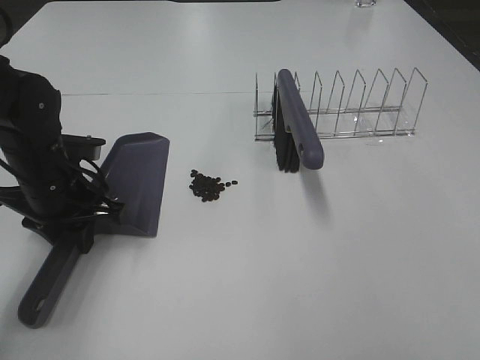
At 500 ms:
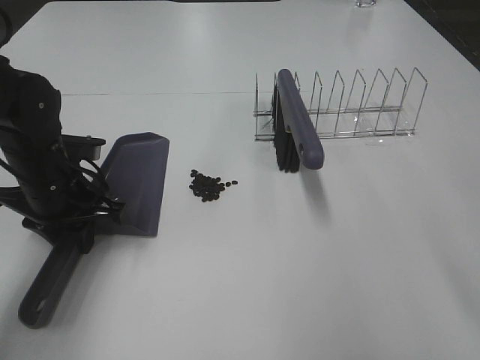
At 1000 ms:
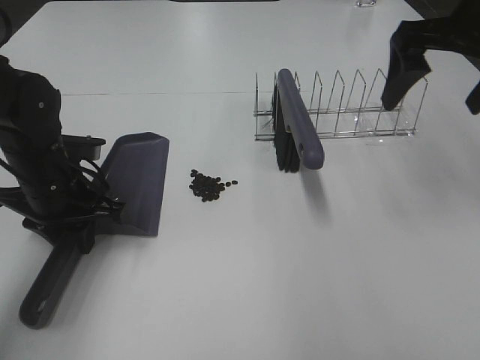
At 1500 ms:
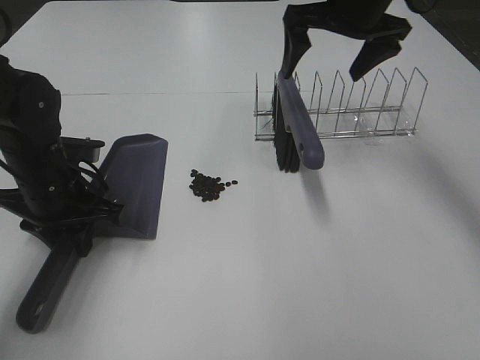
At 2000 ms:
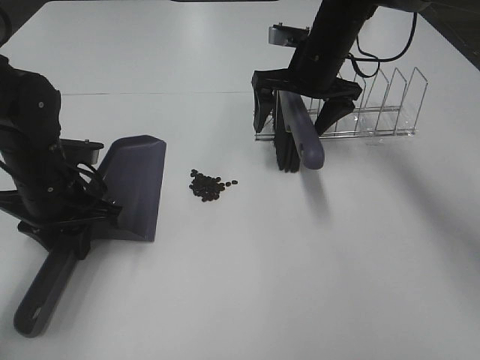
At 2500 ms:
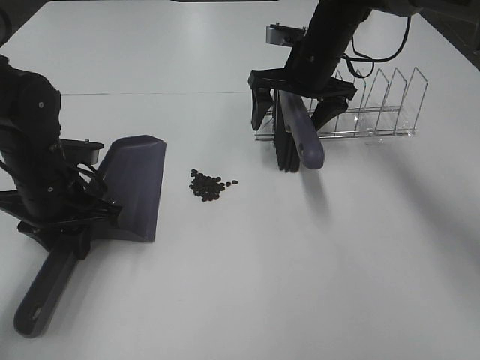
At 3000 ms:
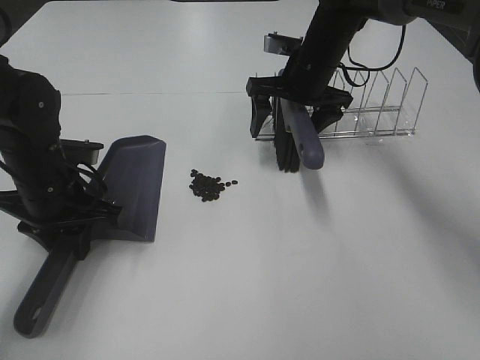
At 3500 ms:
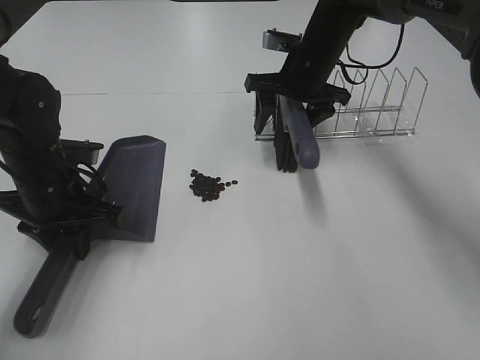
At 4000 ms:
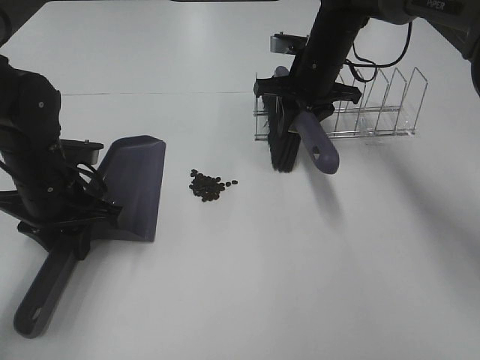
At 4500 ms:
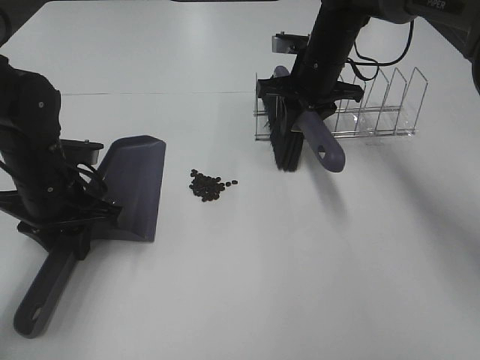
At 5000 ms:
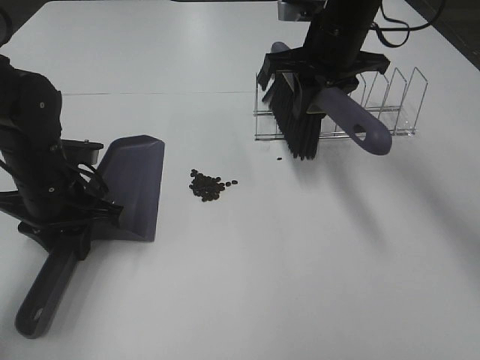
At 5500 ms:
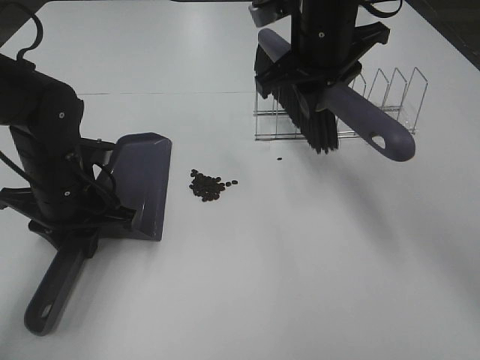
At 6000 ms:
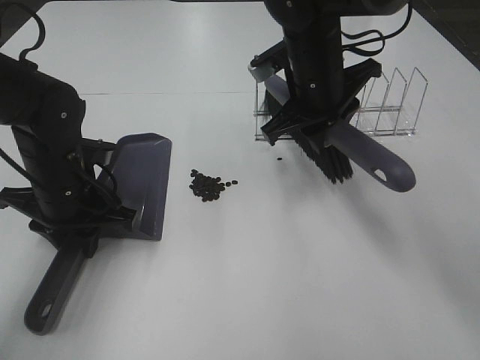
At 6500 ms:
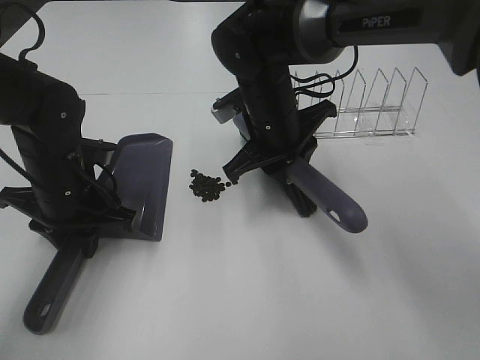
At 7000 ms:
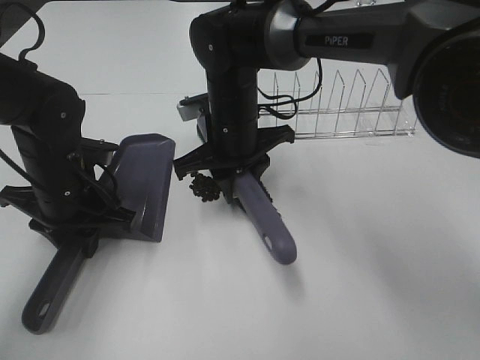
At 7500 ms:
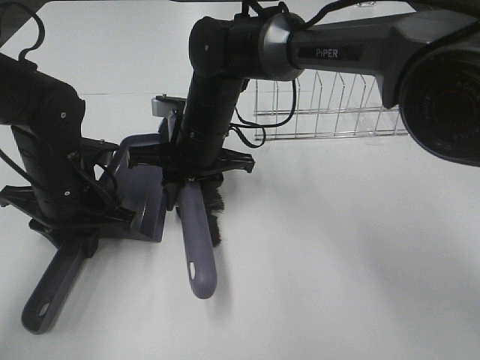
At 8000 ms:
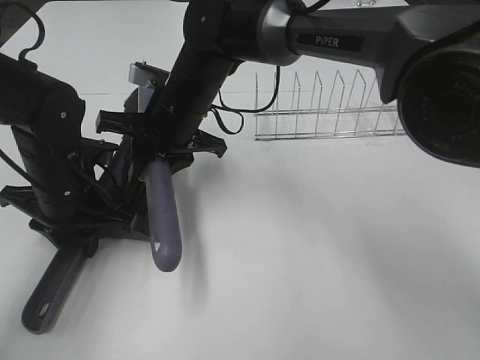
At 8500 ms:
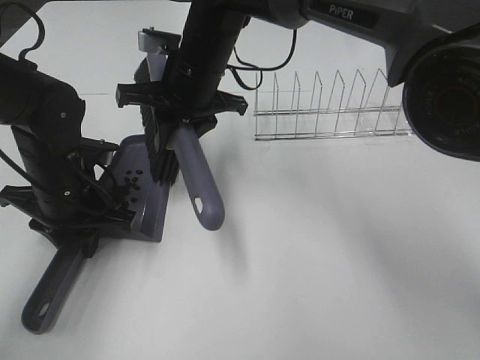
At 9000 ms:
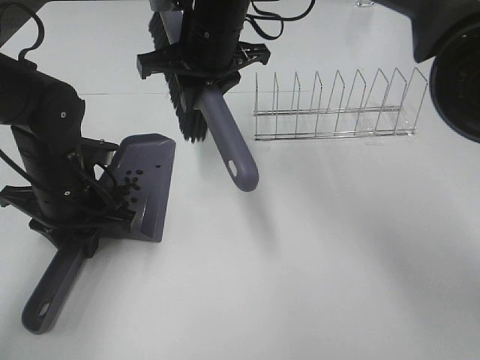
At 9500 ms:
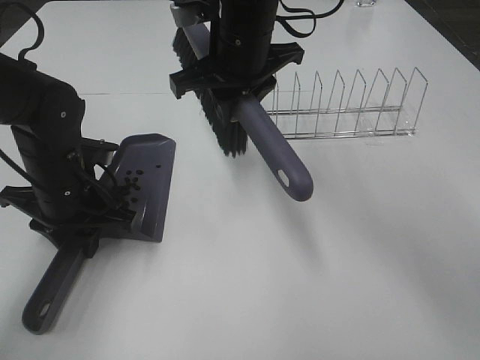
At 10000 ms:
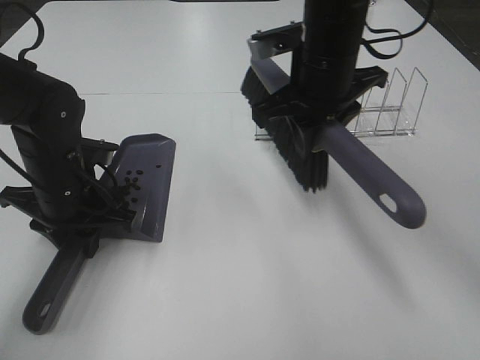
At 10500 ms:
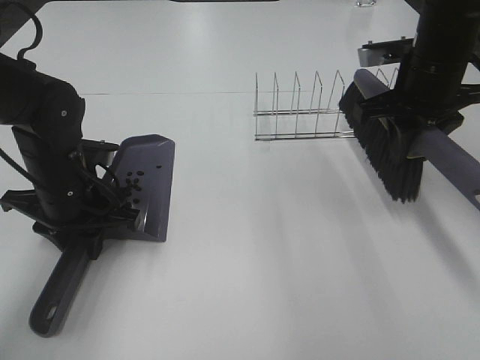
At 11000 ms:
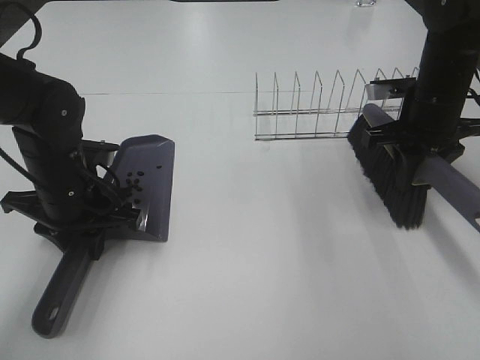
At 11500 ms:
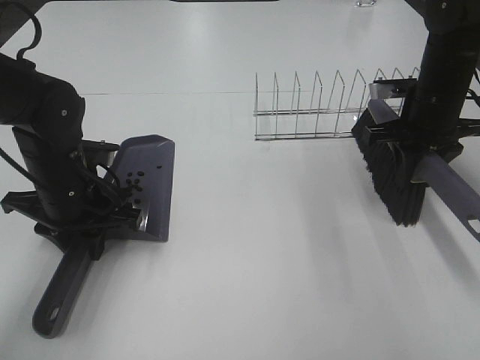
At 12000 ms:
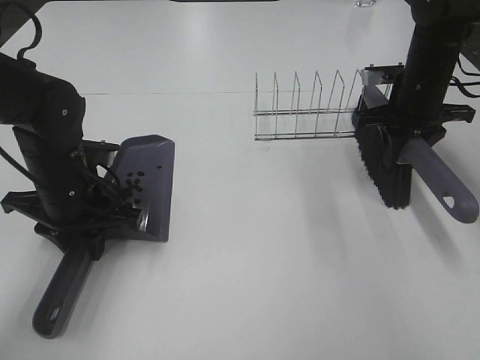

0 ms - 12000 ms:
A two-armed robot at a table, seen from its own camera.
Task of the whole recording: Sweep Coffee Bean.
Step, 0 ms - 3500 ms: Right hand:grab the broom.
Step, 4000 ms - 8000 ms: Right hand:sweep the coffee beans into the dustpan.
0 ms - 2000 ms: The right gripper goes some 40 cm forward.
2000 ms - 4000 ms: The right gripper closes.
4000 ms - 6000 ms: The right gripper shifts about 10 cm backward.
6000 ms - 8000 ms: The right gripper travels to the left by approximately 15 cm.
8000 ms - 10000 ms: The right gripper shifts about 15 cm to the right and upward.
10000 ms - 12000 ms: The right gripper shifts roughly 20 cm to the right, forward and downward.

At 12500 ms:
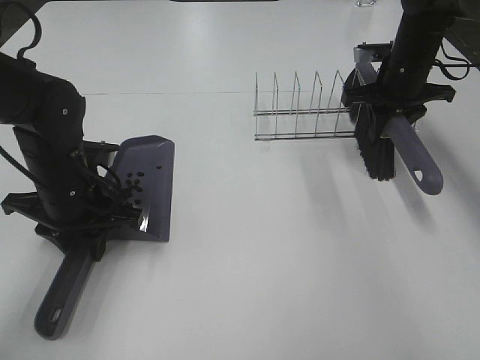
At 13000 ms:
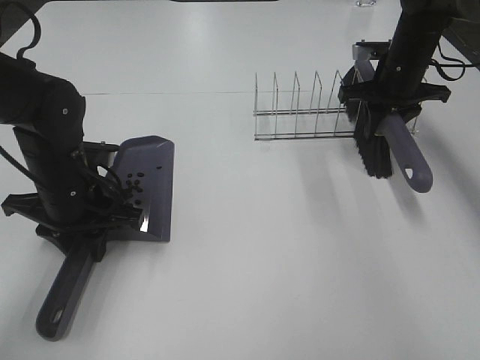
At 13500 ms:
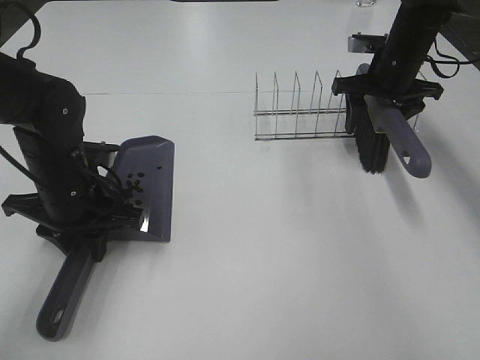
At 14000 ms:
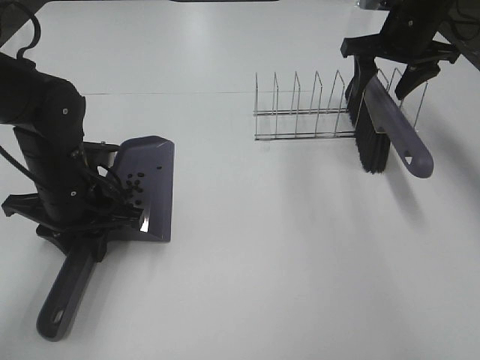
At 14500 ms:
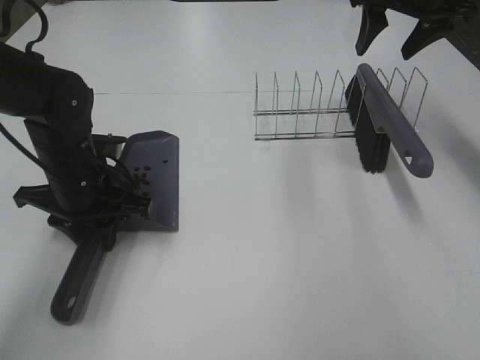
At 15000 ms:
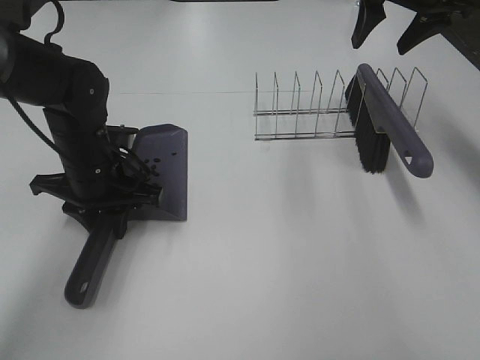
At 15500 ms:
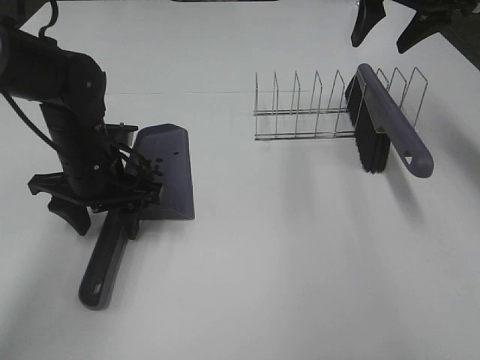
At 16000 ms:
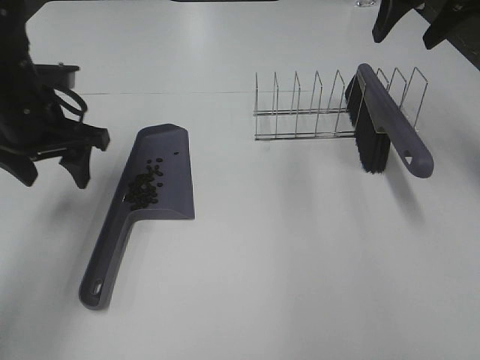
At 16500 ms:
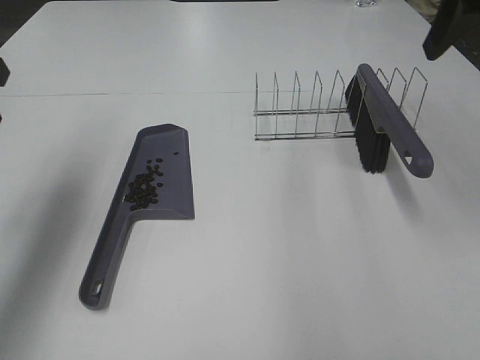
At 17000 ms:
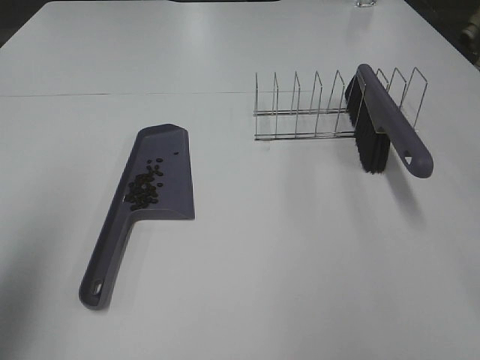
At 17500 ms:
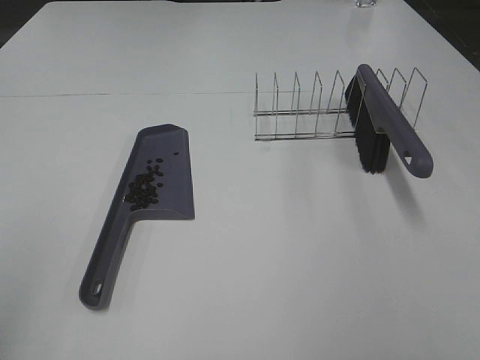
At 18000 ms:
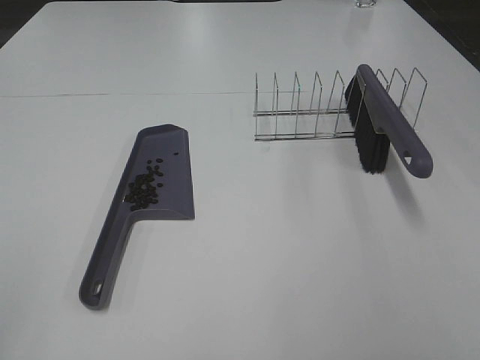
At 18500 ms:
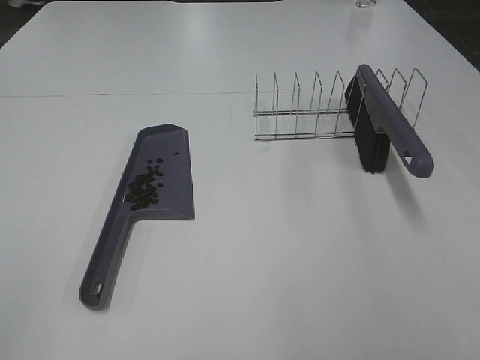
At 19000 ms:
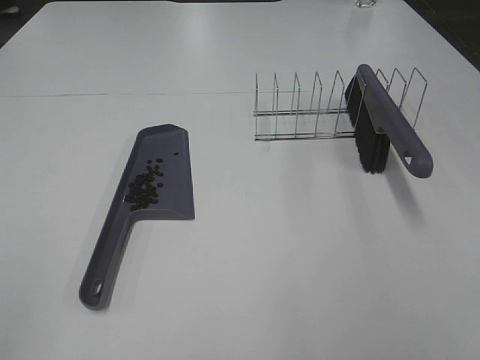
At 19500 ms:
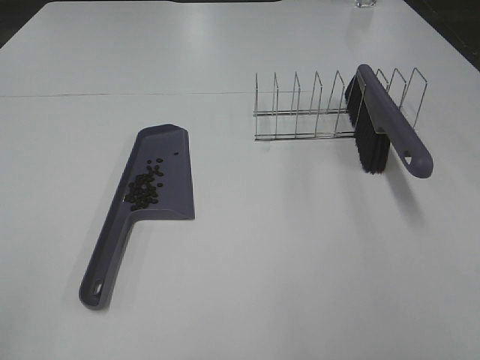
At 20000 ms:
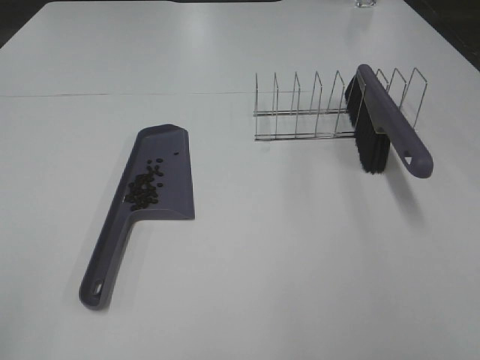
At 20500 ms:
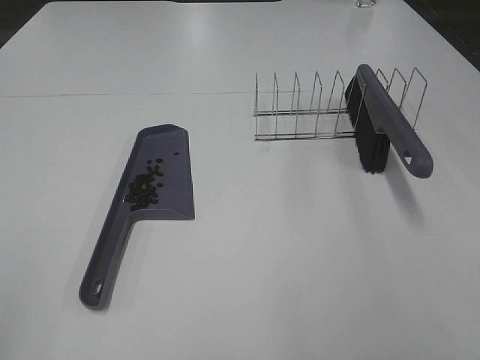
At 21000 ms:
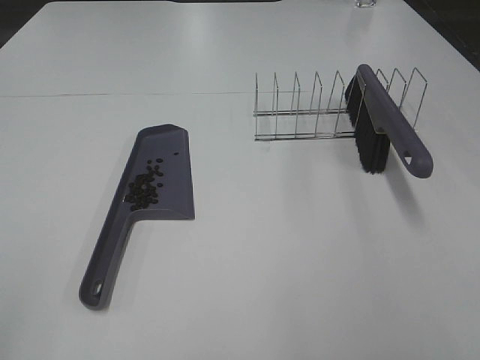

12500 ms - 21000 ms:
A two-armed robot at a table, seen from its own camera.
Task of the whole recording: Sweep Coffee Bean.
Step, 14000 ms - 15500 ms: Left hand:place the dustpan on the table.
12500 ms - 14500 ms: The right gripper heads upward, covering roughly 15 cm, and opens up.
14500 ms - 16500 ms: The right gripper is displaced backward and upward by some 20 cm. The left gripper goes some 20 cm upward and to the left, and opens up.
16500 ms - 19000 ms: Both grippers move backward, about 30 cm.

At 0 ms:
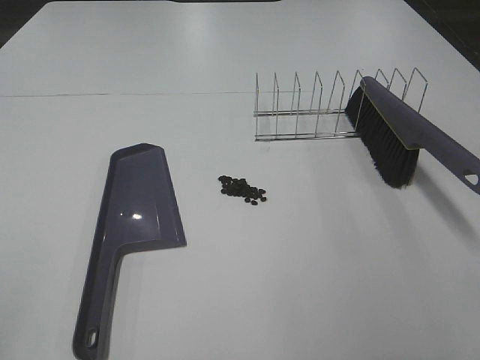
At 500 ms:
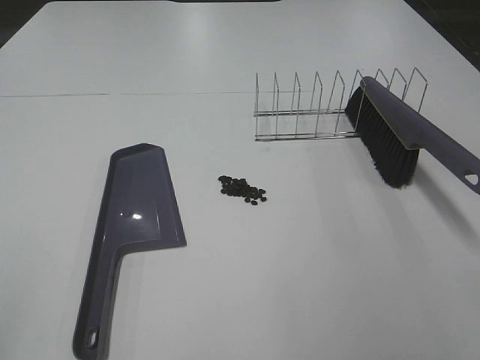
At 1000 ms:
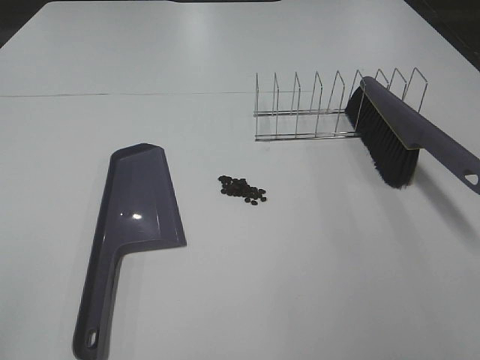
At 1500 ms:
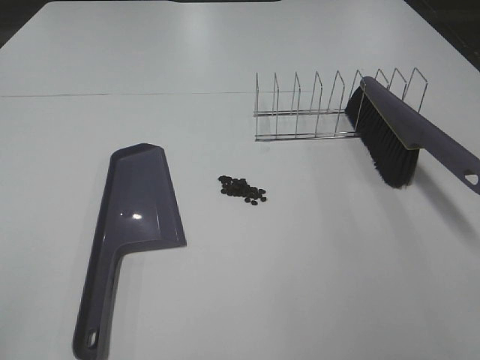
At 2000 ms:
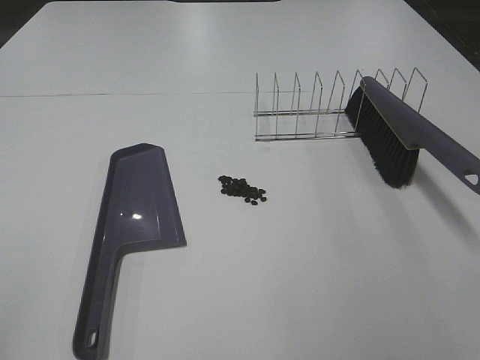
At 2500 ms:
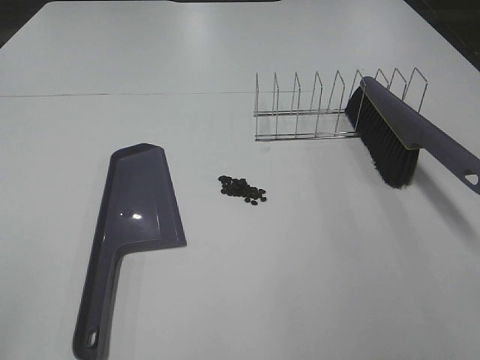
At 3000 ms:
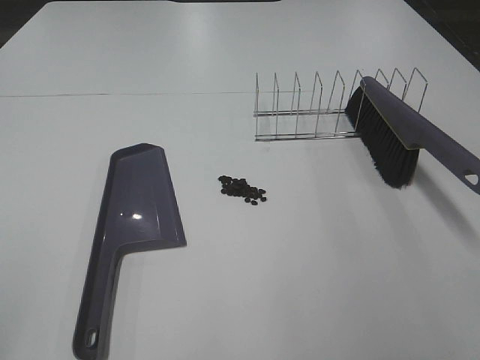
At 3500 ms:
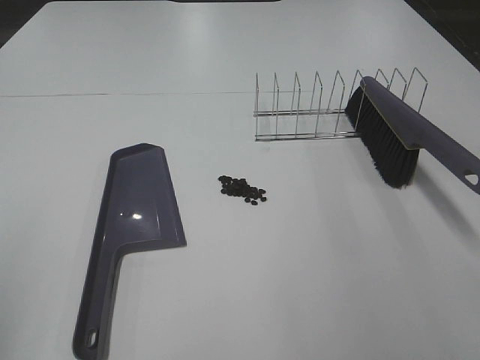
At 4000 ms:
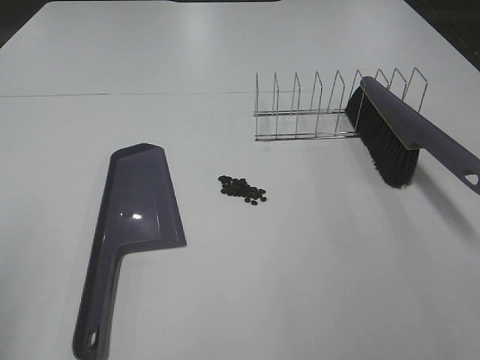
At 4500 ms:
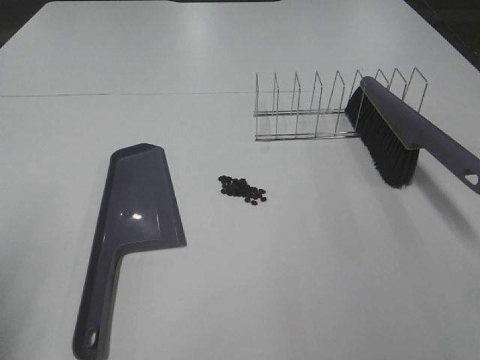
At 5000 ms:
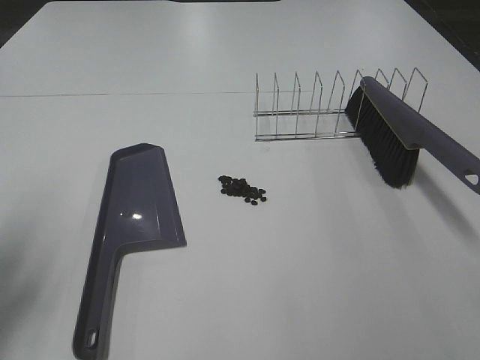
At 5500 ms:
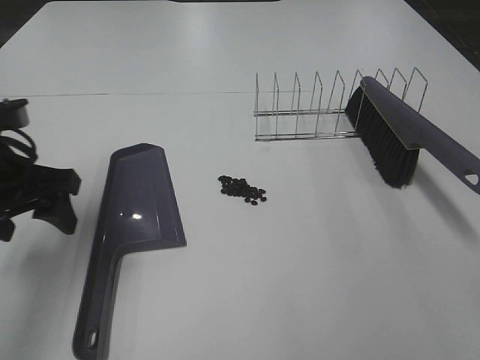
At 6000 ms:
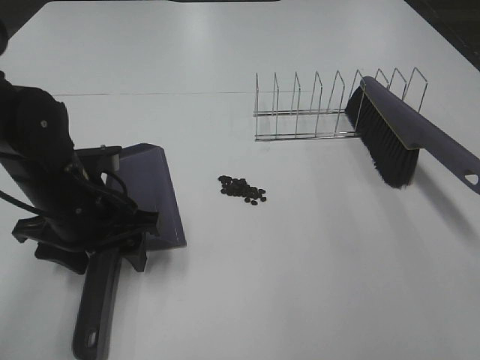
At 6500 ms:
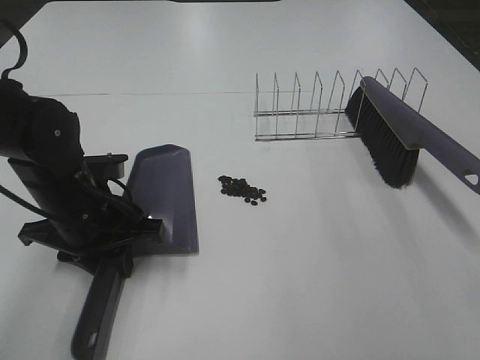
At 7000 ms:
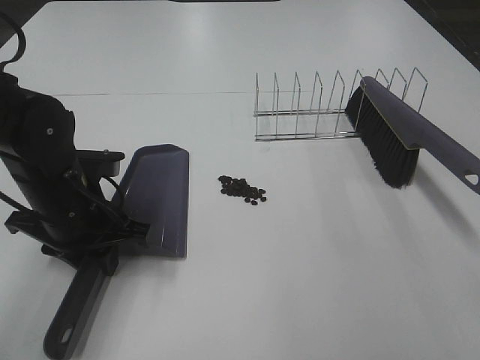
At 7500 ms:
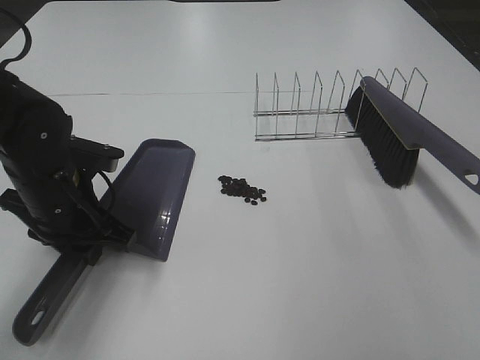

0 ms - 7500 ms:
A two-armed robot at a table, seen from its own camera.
Task of the whole recording: Sweep Coffee Bean.
Step, 0 ms - 6500 ms: Left hand: grab the dustpan.
0 ms - 2000 ms: The two grippers keep their place.
4000 ms - 5500 ms: The left gripper is displaced forward, to the right and downward by some 20 cm.
5500 ms - 7500 ms: The right gripper changes place by about 5 cm. The left gripper is displaced downward and to the right by about 10 cm, and closes its fingers.
